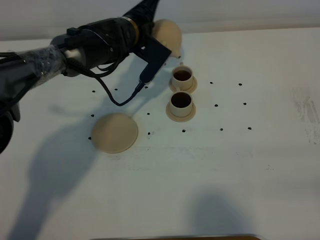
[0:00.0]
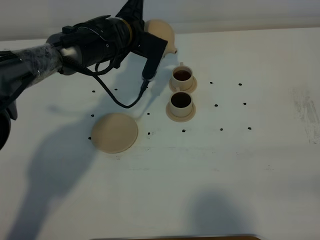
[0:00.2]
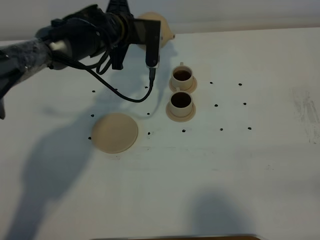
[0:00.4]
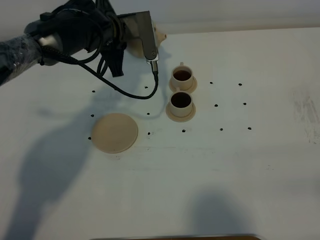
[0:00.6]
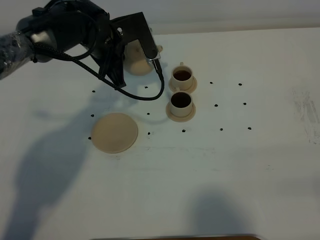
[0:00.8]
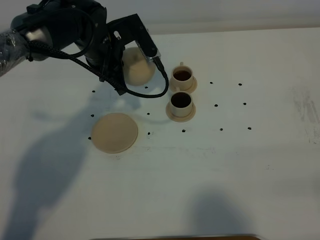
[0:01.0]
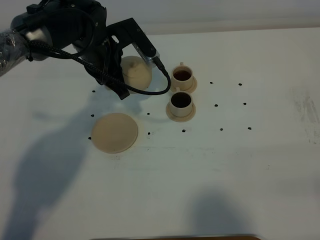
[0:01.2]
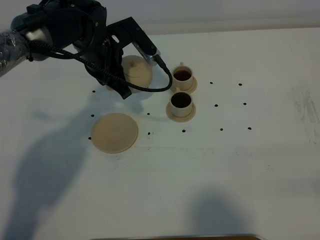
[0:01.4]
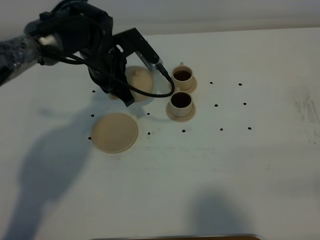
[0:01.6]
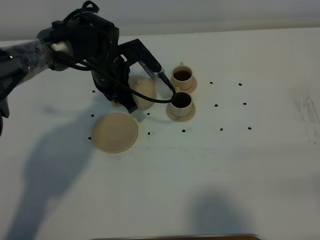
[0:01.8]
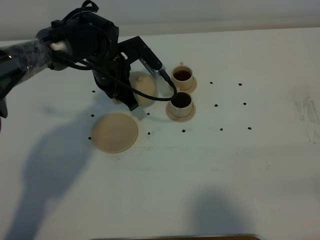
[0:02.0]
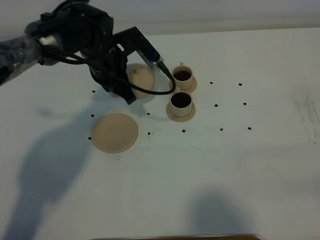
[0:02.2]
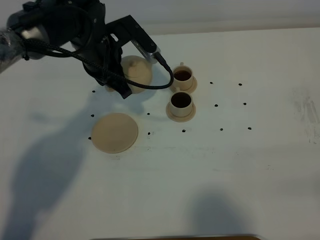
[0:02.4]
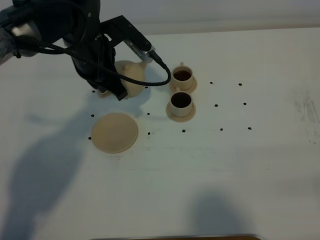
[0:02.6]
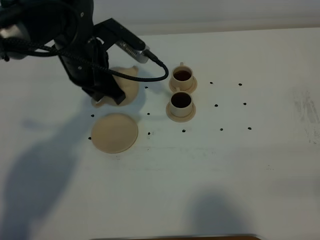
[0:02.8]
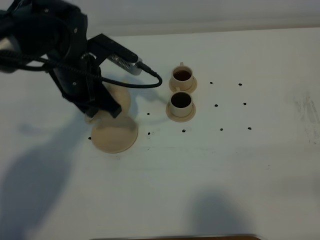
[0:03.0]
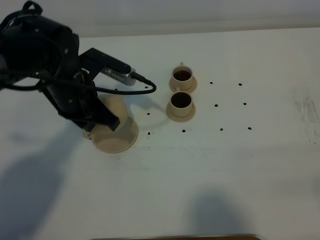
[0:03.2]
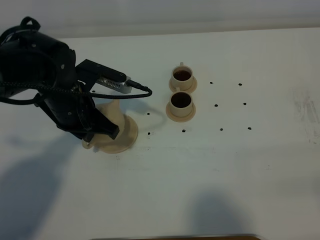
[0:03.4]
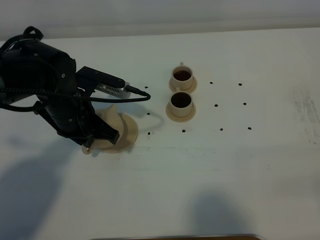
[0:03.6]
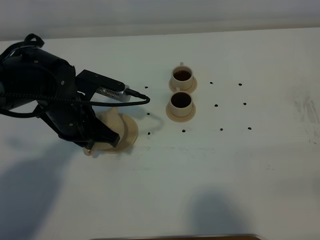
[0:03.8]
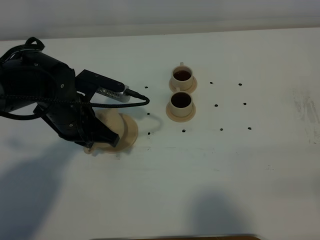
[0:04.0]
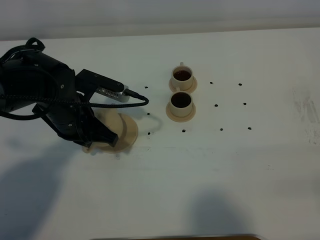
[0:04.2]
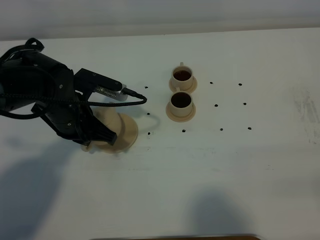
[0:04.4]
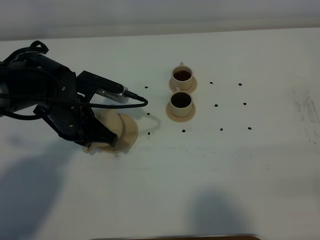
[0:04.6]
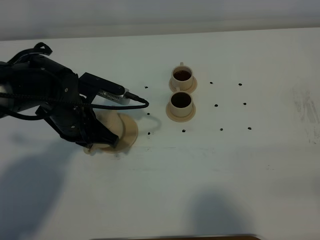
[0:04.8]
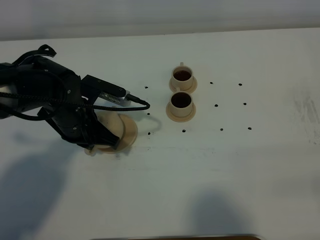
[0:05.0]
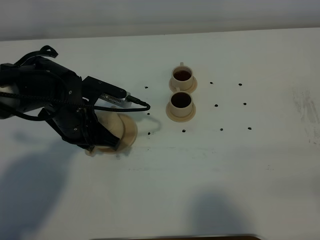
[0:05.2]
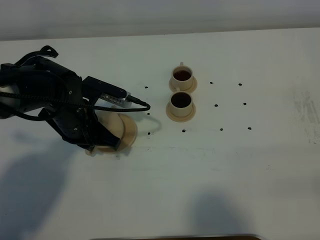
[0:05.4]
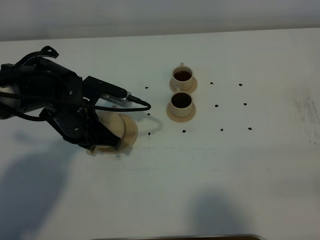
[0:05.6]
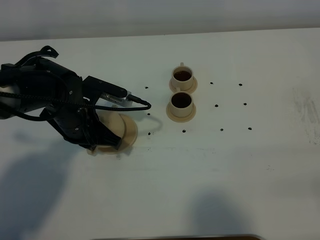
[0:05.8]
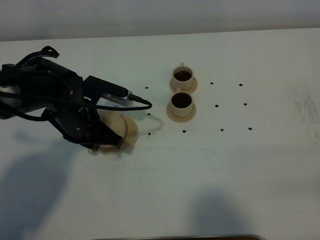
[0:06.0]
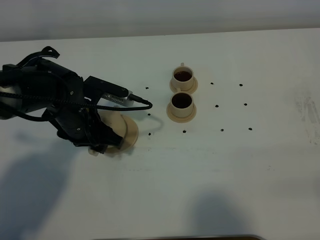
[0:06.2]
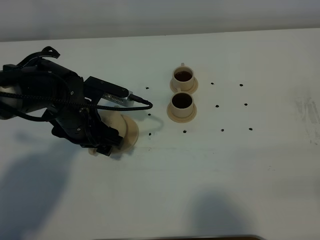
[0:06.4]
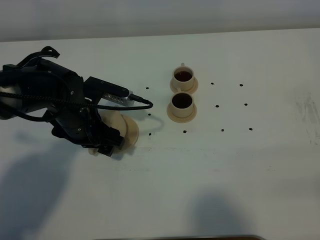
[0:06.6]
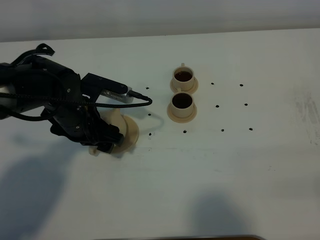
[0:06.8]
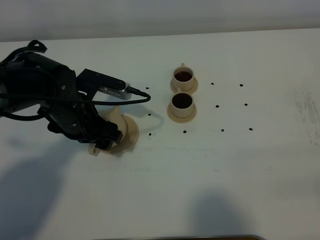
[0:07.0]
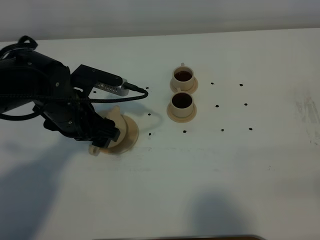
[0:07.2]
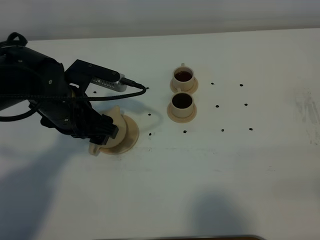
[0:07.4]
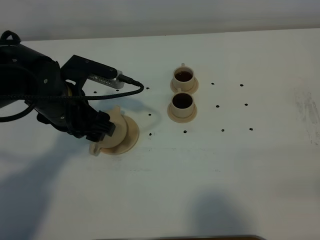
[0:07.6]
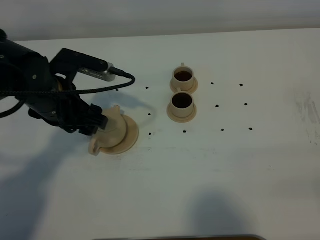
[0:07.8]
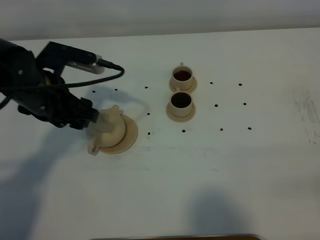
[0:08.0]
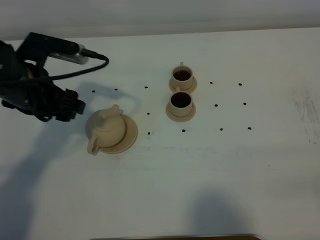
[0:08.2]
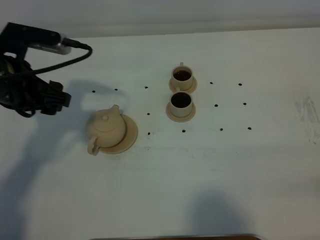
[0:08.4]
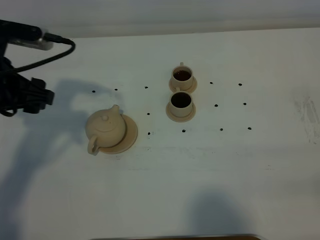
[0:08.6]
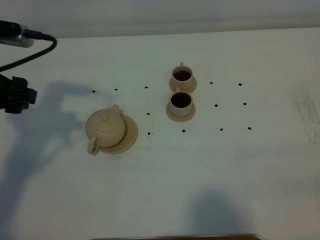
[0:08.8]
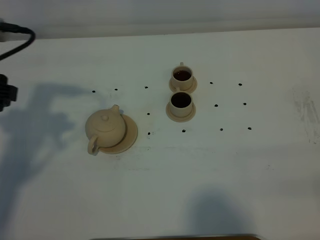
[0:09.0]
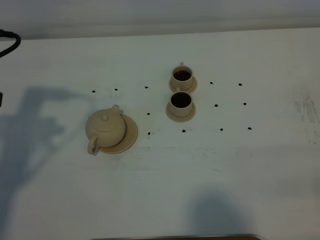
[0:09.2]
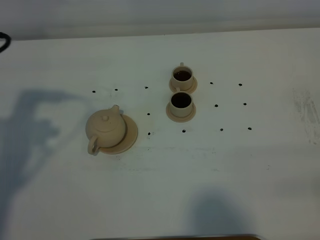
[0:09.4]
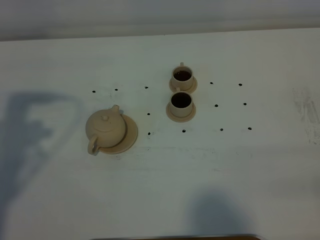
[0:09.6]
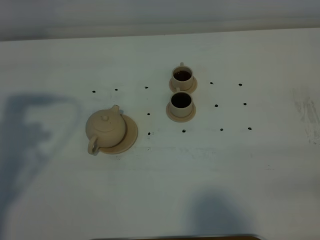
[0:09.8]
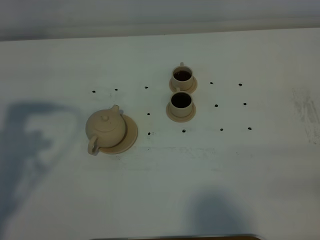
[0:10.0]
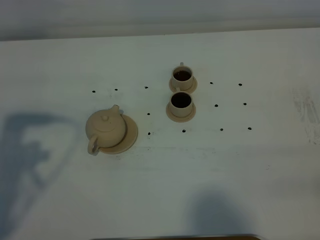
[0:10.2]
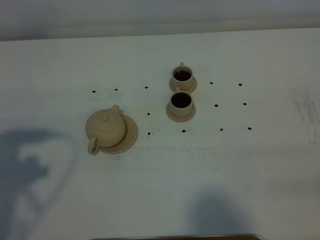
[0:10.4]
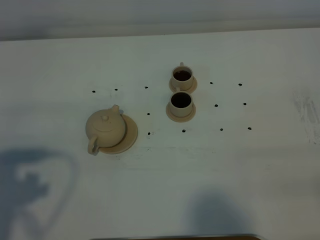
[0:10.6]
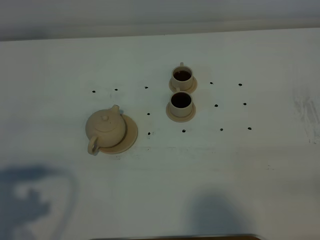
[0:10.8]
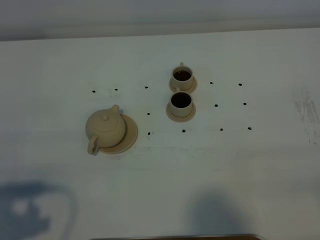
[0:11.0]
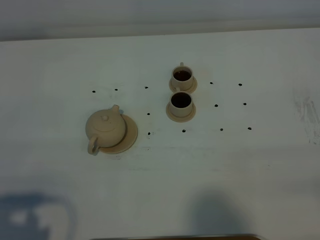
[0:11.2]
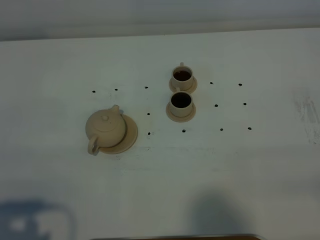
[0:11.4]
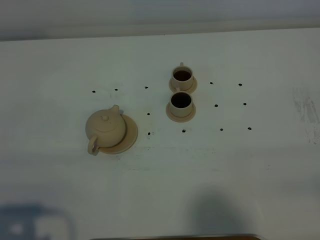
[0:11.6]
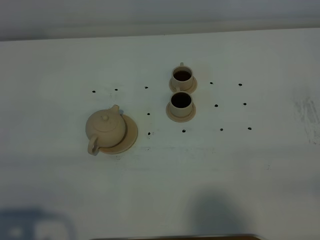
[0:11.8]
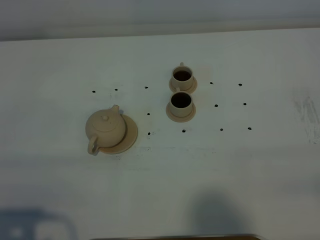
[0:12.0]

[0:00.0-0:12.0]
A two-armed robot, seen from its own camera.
Task of the whole recording: grasp the brown teapot and pour the tea into the two brown teacups one by one, put the brown teapot back in its original place.
0:00.0 to 0:01.6: The left gripper shifts by about 5 cm.
0:01.6 to 0:03.0: The left gripper travels backward by approximately 5 cm.
0:03.0 to 0:04.4: The left gripper changes place by some 5 cm.
0:04.4 to 0:06.0: The grippers stay close to where they were, moving slightly.
0:06.0 to 0:07.6: The left gripper moves upward, roughly 5 cm, and opens its fingers.
0:07.6 to 0:09.0: The left gripper travels to the left and upward by roughly 15 cm.
0:09.0 to 0:10.4: The left gripper moves backward, about 10 cm.
0:10.4 to 0:12.0: The left gripper heads backward and downward, covering roughly 15 cm.

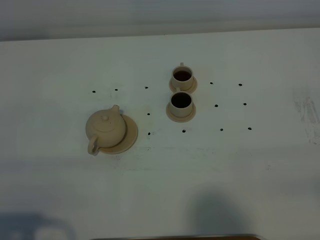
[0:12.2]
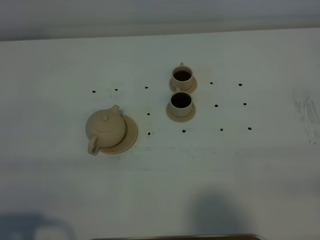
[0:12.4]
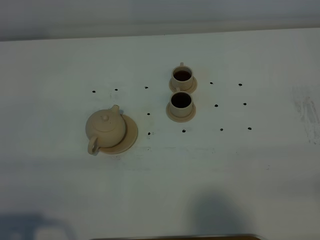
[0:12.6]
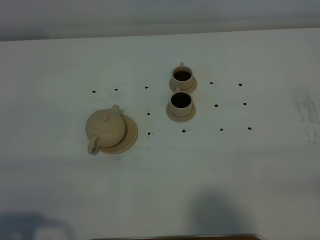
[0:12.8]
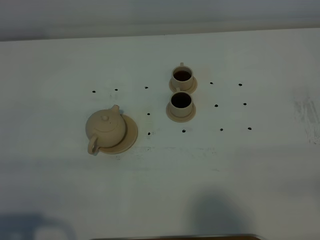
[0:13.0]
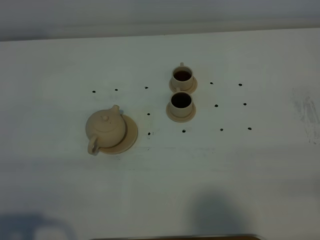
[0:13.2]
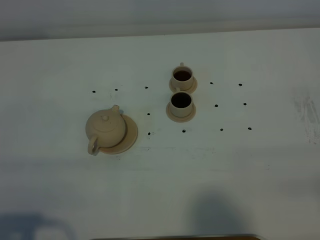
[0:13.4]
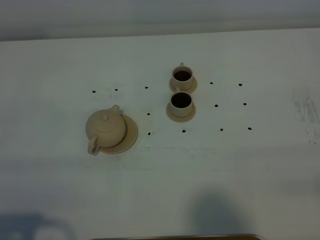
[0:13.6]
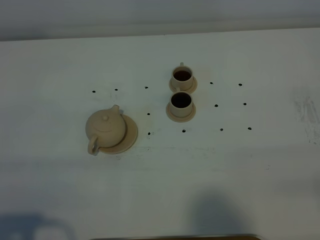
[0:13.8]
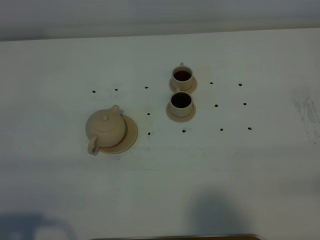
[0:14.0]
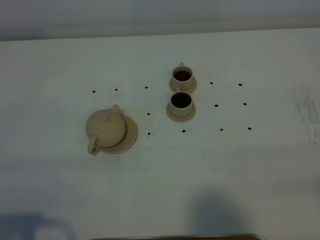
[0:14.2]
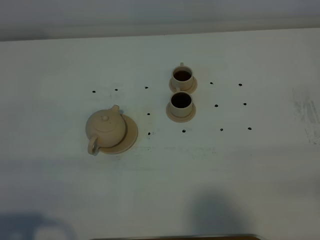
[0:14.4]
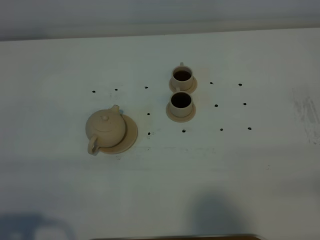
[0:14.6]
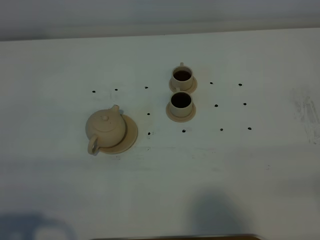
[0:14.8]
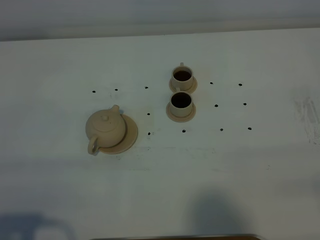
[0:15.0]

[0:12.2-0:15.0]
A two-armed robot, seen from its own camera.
Task of the whole recording: grasp the brown teapot and pour the tea into the two brown teacups one by one, put the brown teapot back in its original place.
0:12.2 to 0:15.0: The two grippers keep their place.

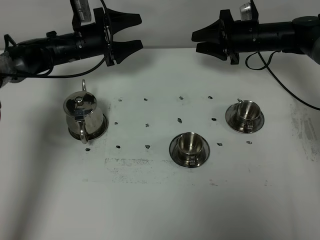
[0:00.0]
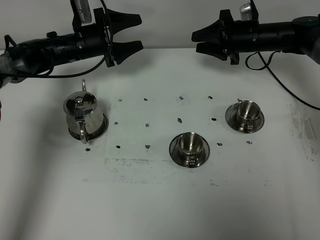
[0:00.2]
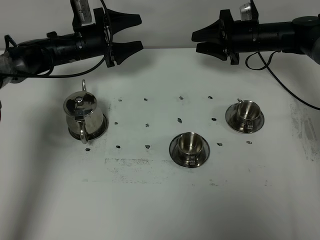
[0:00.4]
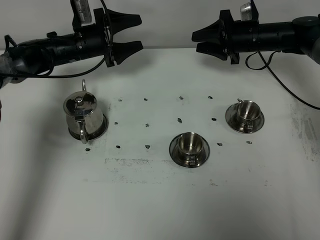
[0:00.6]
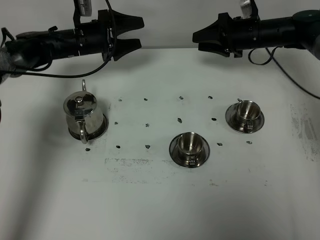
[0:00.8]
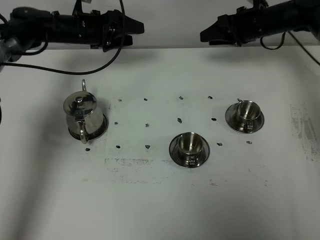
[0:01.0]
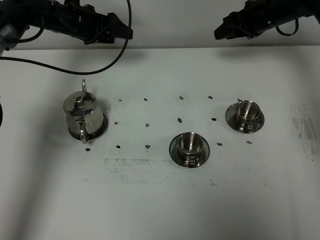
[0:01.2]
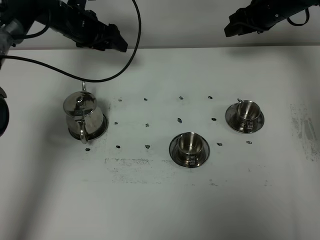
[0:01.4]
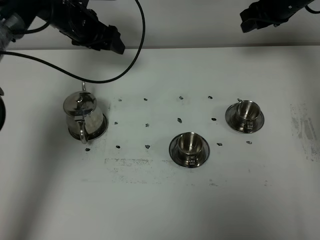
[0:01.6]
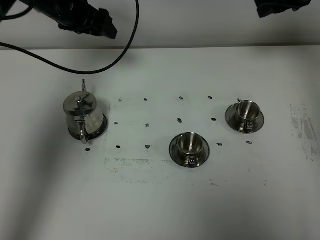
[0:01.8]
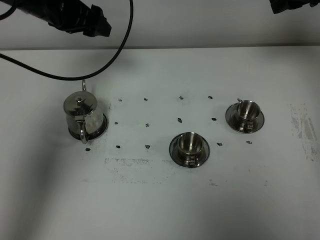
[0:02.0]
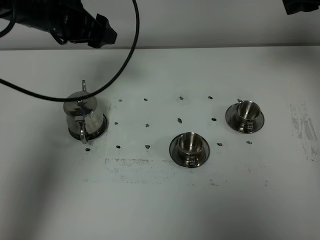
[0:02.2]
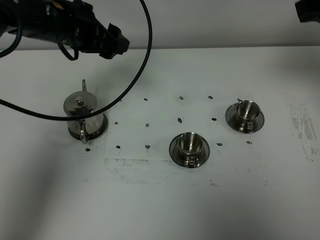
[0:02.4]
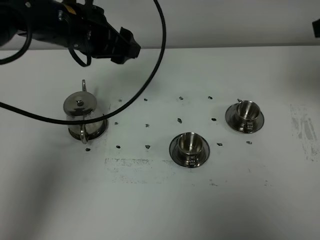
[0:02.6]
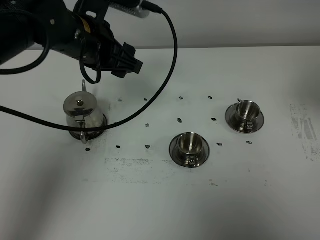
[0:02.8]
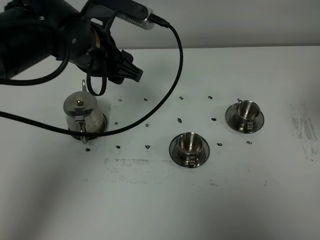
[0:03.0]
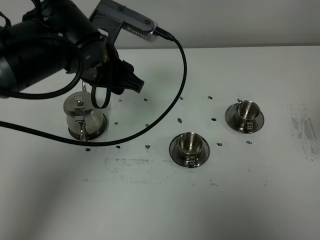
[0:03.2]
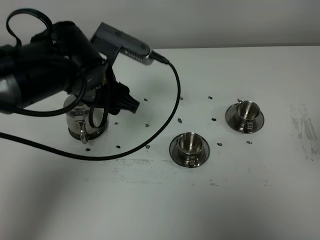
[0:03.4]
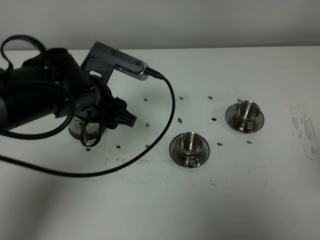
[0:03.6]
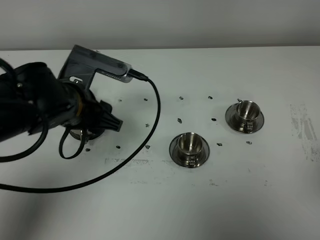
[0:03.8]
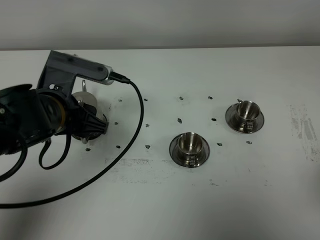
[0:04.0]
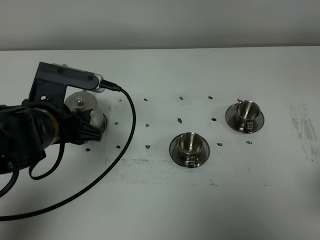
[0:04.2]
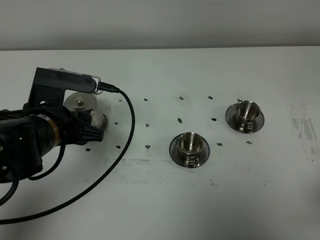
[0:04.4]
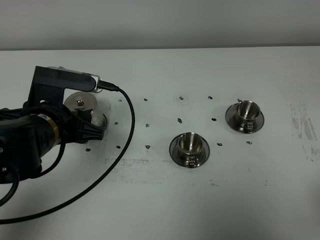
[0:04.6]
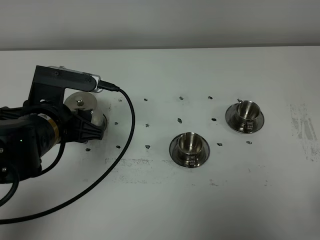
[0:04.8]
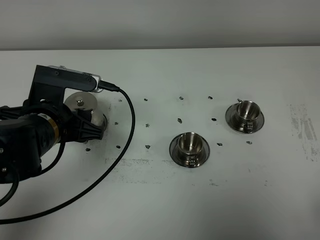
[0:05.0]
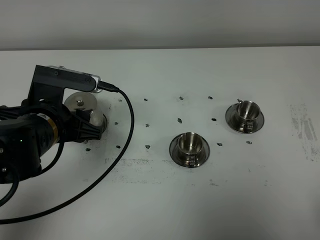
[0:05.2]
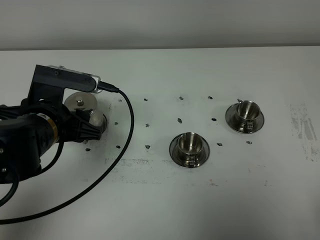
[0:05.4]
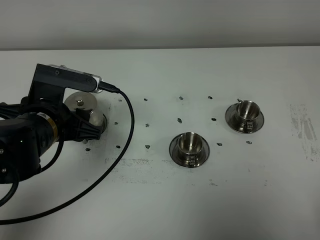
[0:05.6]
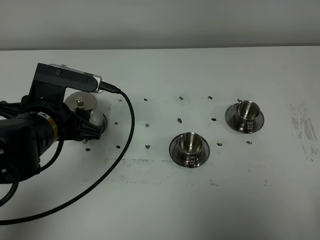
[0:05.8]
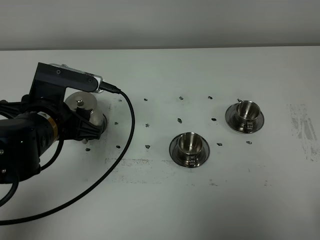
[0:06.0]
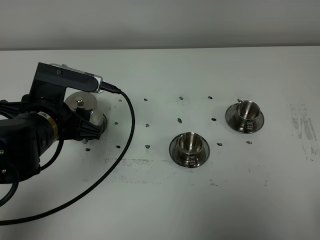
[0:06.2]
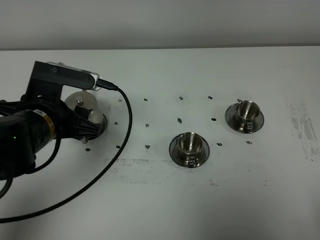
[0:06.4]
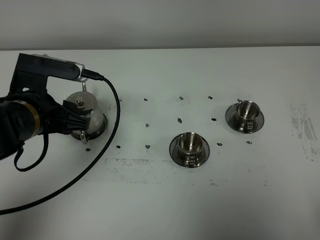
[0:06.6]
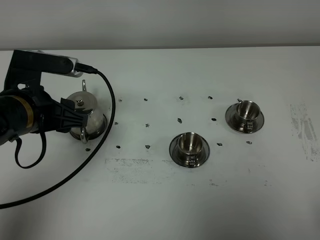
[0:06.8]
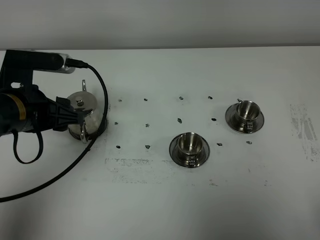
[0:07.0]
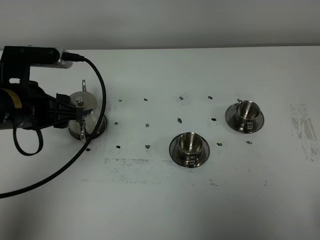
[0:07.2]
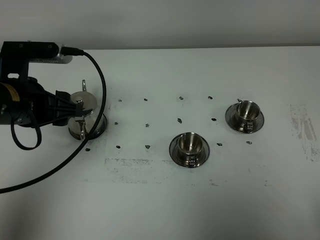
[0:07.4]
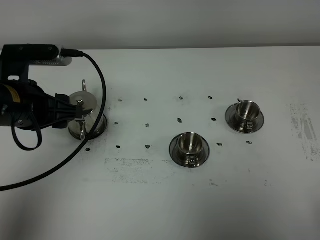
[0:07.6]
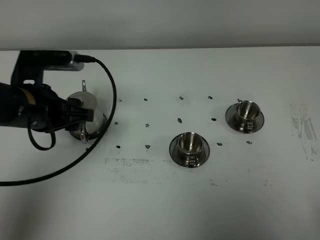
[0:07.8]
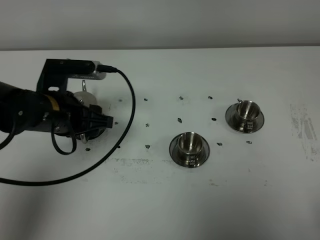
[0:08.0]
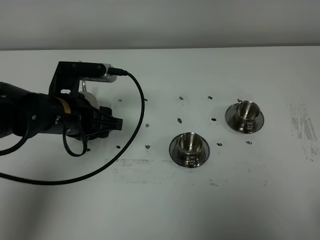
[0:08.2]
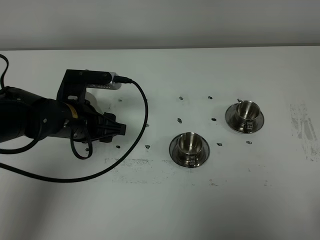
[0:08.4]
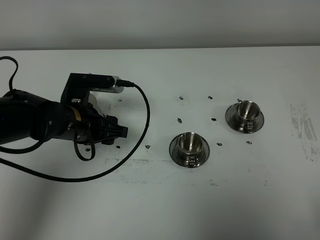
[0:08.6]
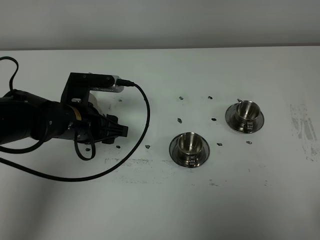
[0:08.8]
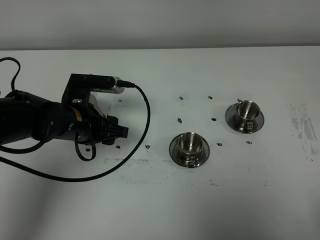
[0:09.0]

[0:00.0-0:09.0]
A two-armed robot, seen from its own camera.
Task of the whole recording: grasp the stainless steel teapot and pour the tea into the two stainless steel teacups one by one, put the stainless steel teapot back in its original place.
0:00.0 to 0:01.6: The left gripper heads upward, covering roughly 10 cm; the right gripper shifts approximately 10 cm upward and to the right.
0:01.6 to 0:03.0: The right gripper moves backward and upward, approximately 35 cm. The left gripper goes about 20 cm backward and to the right.
0:03.0 to 0:04.4: The right gripper travels backward and downward by approximately 15 cm, while the left gripper shifts about 15 cm backward, downward and to the left.
0:06.0 to 0:07.6: The left gripper ends up about 5 cm from where it was.
0:07.6 to 0:09.0: The left gripper heads downward and to the right, covering roughly 10 cm.
